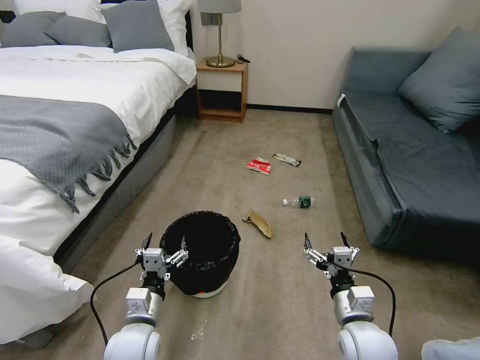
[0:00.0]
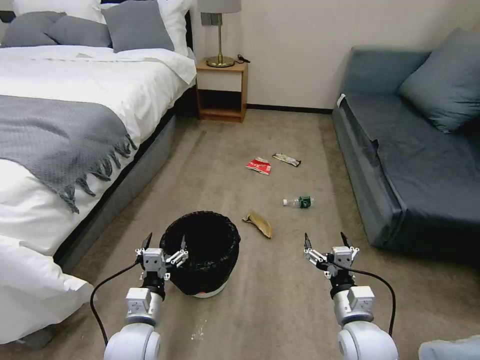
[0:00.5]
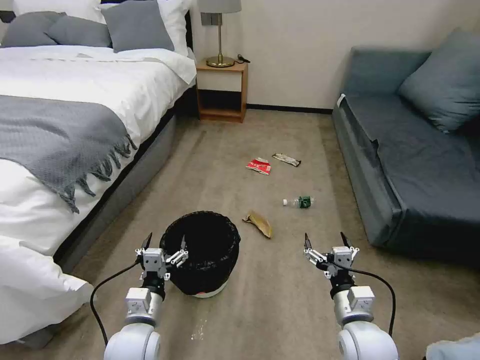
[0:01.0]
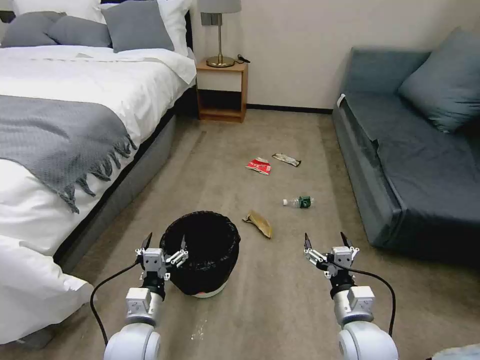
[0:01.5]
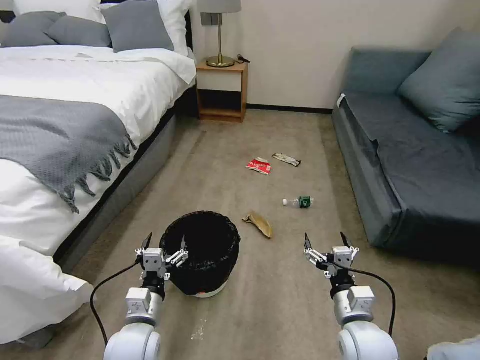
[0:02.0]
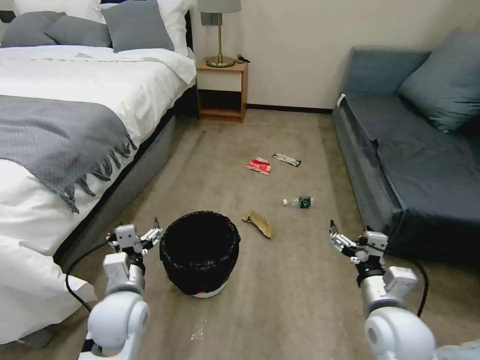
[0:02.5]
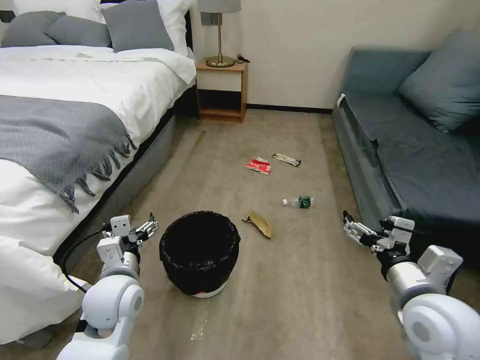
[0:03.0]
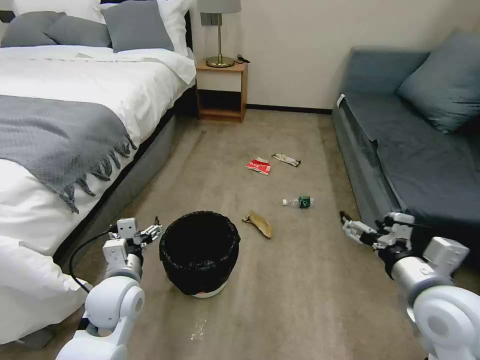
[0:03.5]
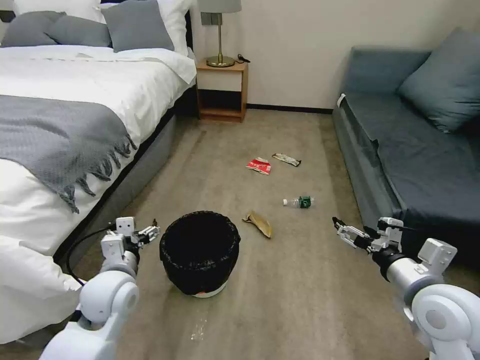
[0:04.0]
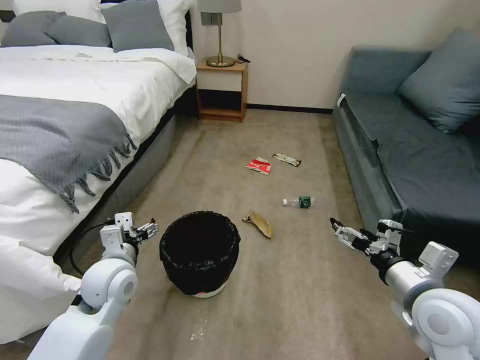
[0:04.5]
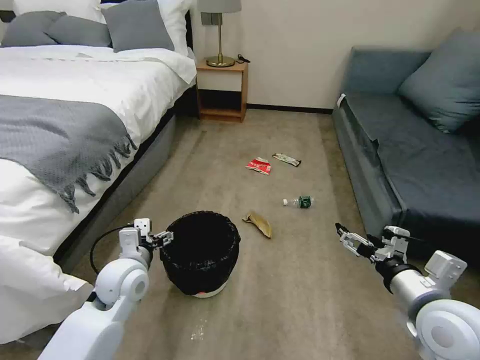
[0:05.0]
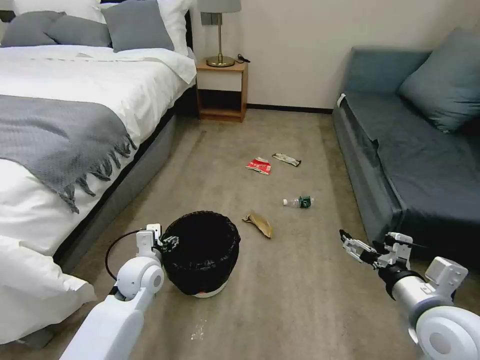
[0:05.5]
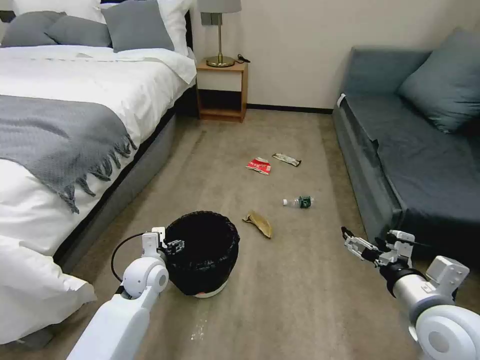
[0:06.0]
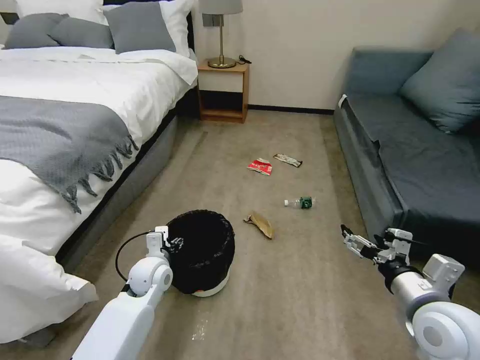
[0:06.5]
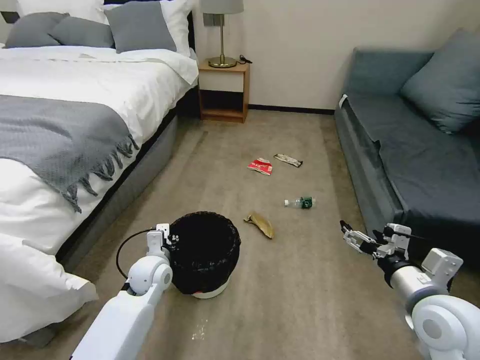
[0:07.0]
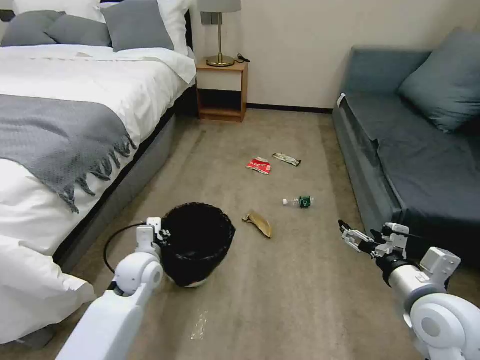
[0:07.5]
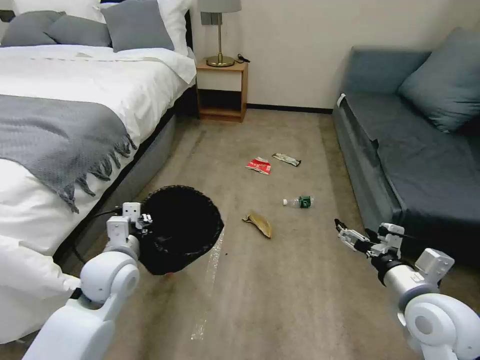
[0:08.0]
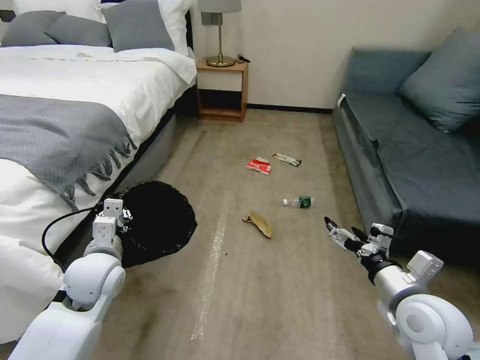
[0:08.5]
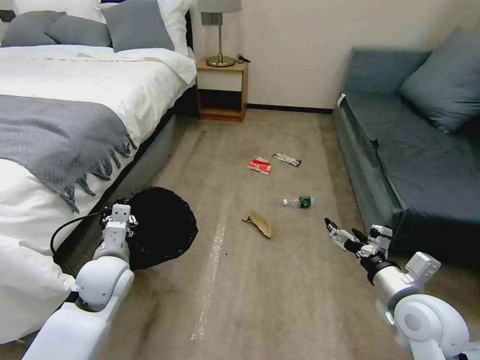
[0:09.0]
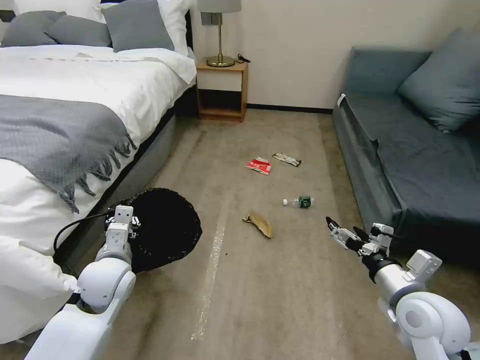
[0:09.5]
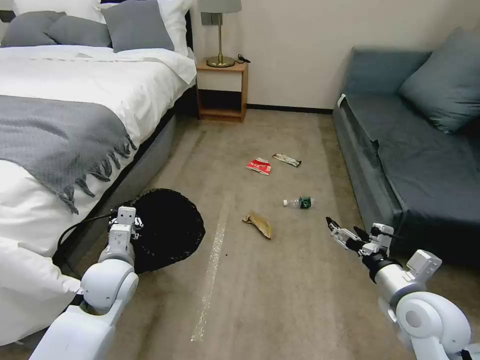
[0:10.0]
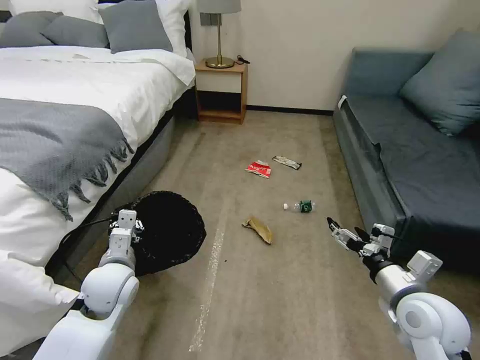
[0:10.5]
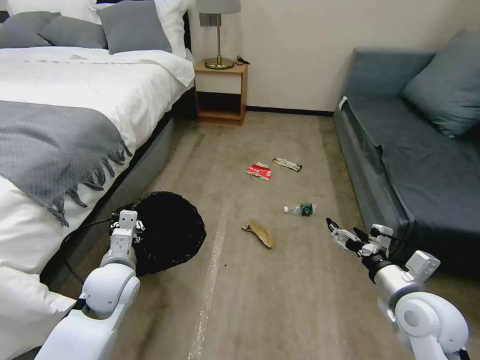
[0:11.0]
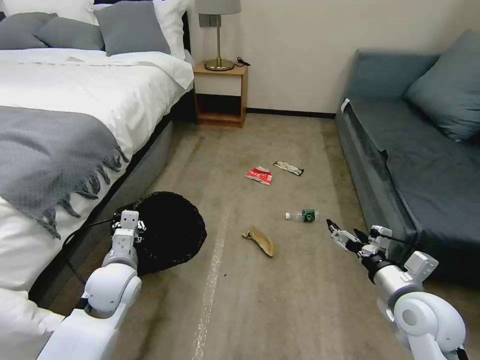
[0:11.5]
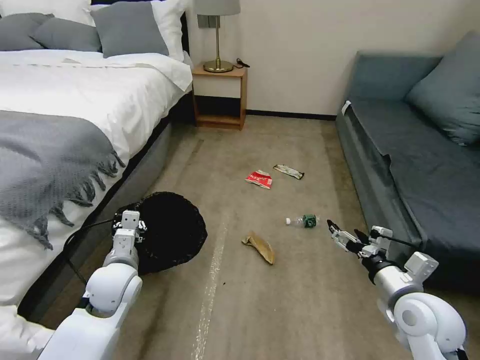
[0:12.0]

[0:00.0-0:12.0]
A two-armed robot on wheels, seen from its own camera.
Task of the whole recording: Pick up the trash bin, then pick up the garbage on the floor and place it into the trash bin.
2.0 to 4.0 s: The right gripper goes about 15 cm upward and to the right. Meanwhile the left gripper shifts approximately 10 cm upward and forward.
4.0 to 6.0 s: The left gripper moves downward and forward, about 10 cm.
6.0 to 8.0 s: The left gripper shifts about 10 cm upward, and closes its fingers.
8.0 to 10.0 s: The grippers make only small movements.

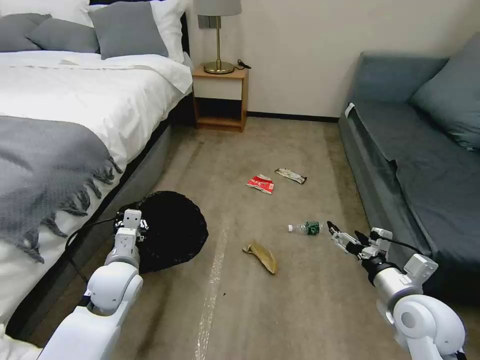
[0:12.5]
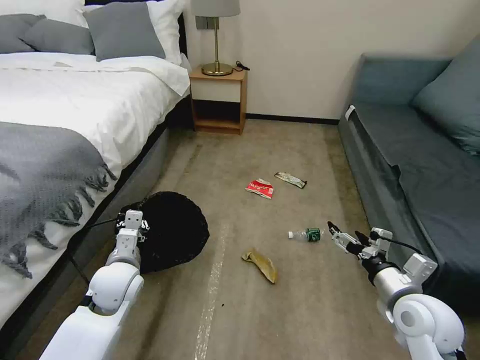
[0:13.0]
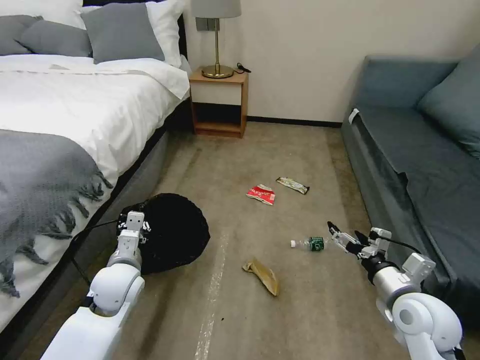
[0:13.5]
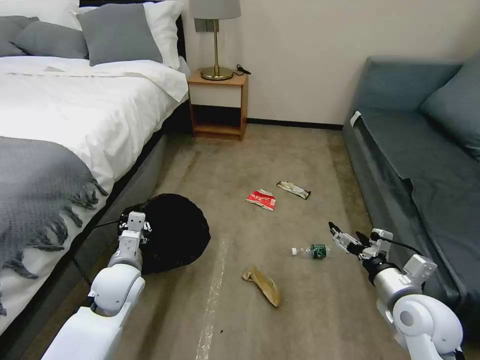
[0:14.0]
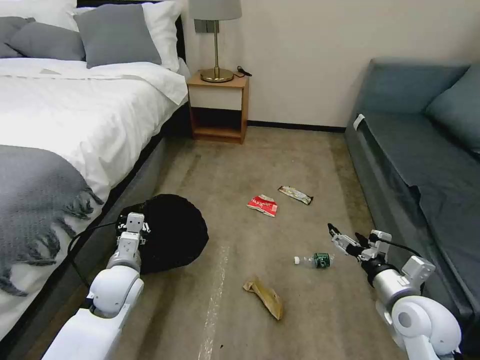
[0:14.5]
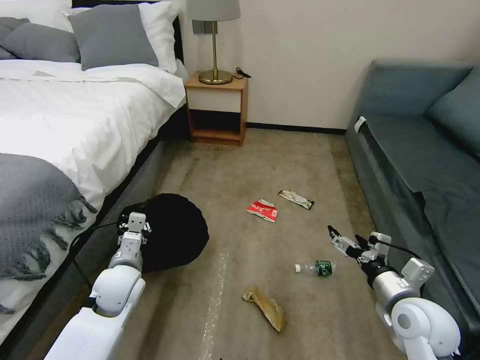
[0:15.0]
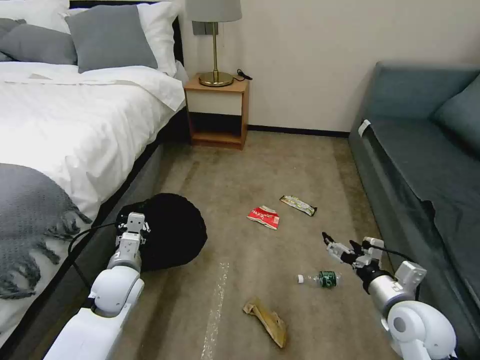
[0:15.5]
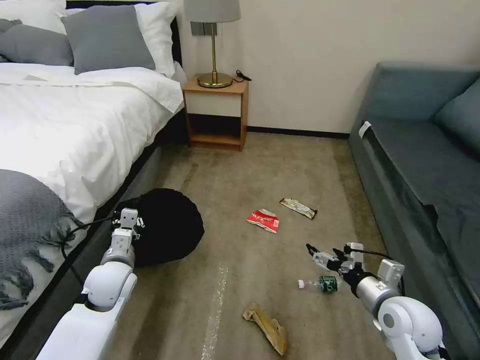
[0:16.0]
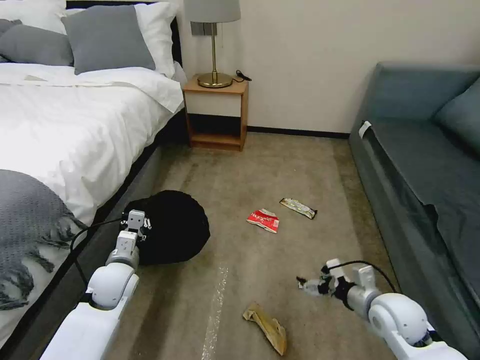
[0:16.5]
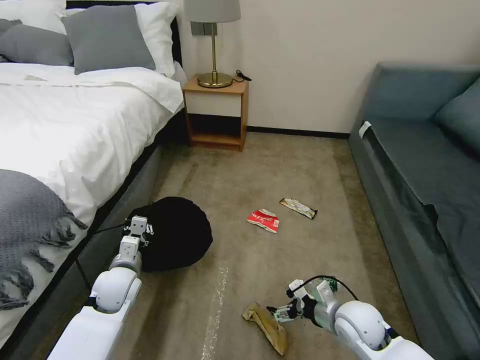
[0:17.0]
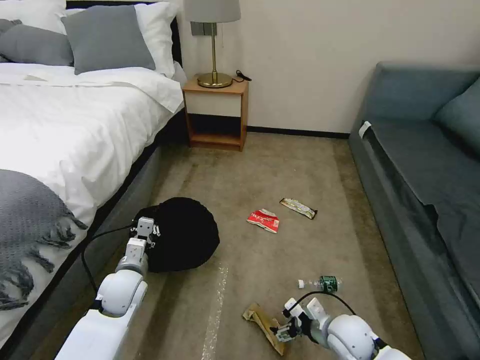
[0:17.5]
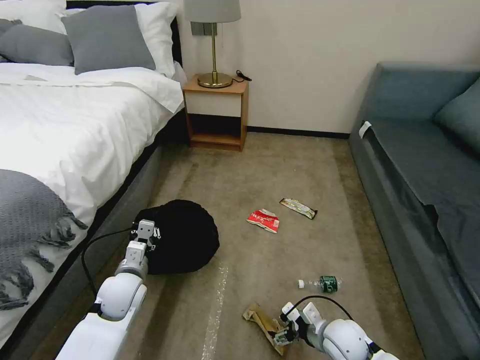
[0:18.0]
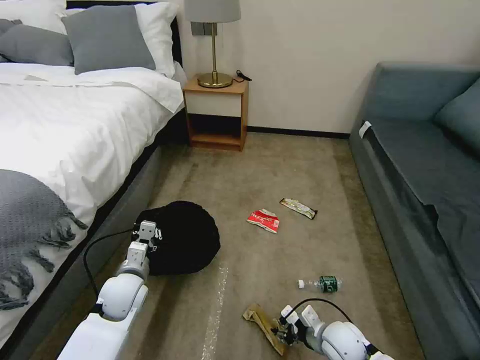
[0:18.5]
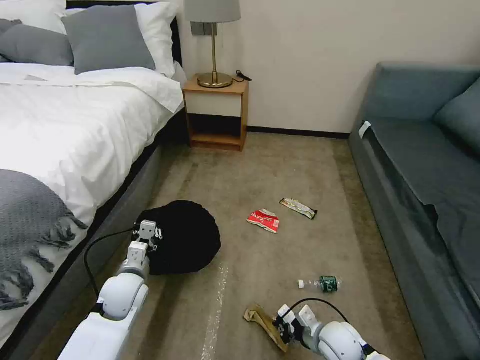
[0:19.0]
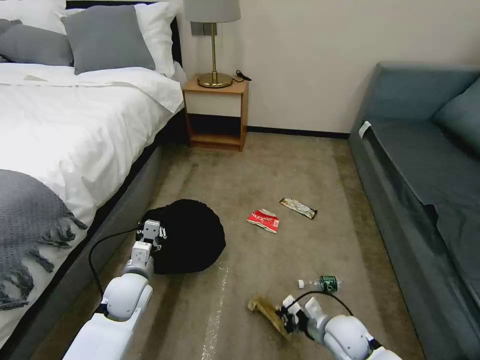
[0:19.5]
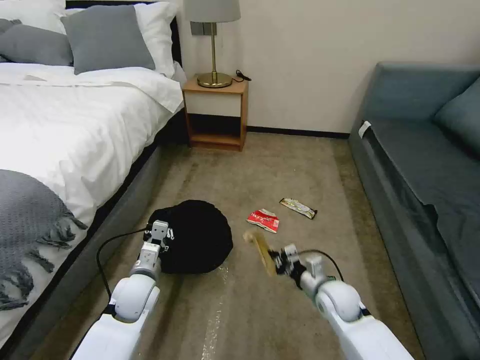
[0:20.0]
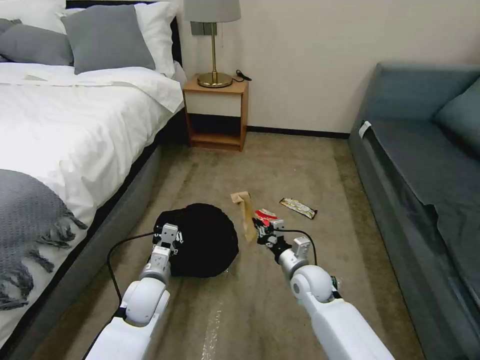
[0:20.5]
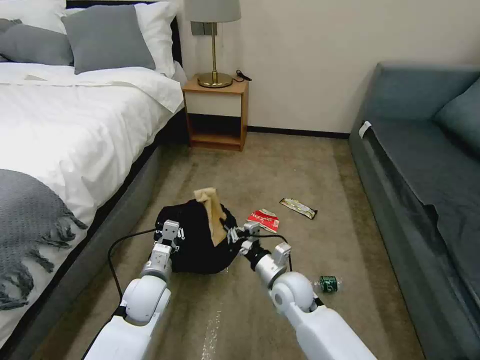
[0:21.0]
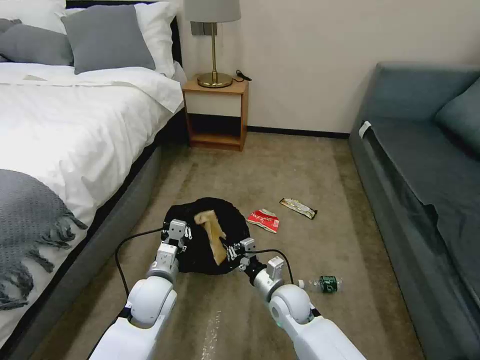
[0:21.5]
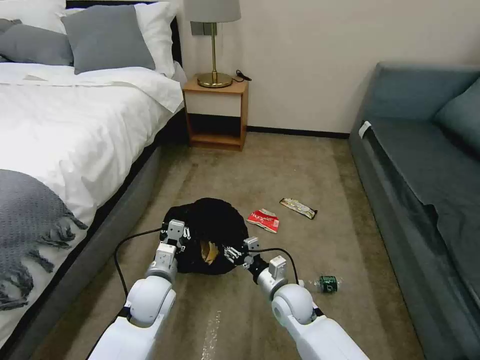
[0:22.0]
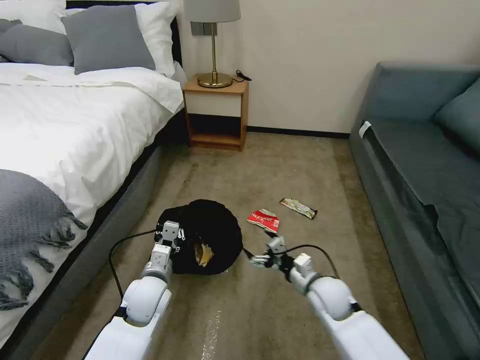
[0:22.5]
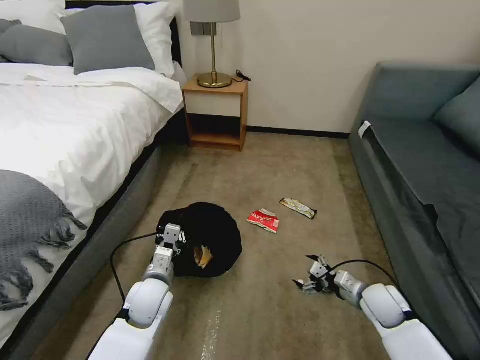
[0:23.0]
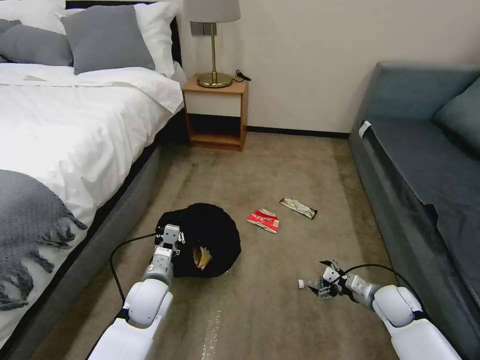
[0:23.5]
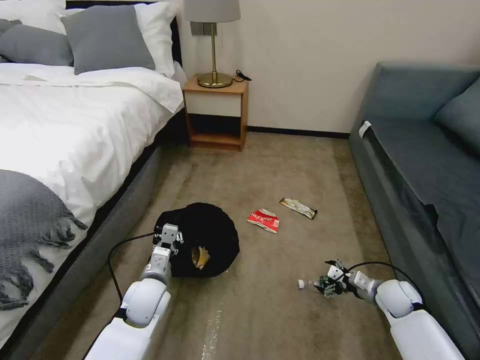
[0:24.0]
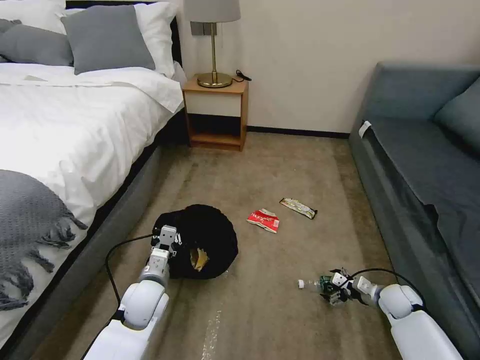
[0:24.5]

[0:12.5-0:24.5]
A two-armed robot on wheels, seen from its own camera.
Task of the whole recording: Pick up the trash bin, then pick up the garbage on the floor and place it into the trash bin.
14.5 to 16.5 s: The right gripper travels downward by roughly 5 cm.
16.5 to 18.5 s: The right gripper shifts approximately 15 cm downward and to the left, and closes.
18.5 to 20.5 s: The left gripper travels to the right by roughly 5 cm, while the right gripper is displaced forward, to the left and upward by roughly 15 cm, and closes.
20.5 to 22.5 s: The right gripper shifts by approximately 5 cm, and opens up.
22.5 to 24.5 s: The right gripper goes roughly 25 cm to the right.

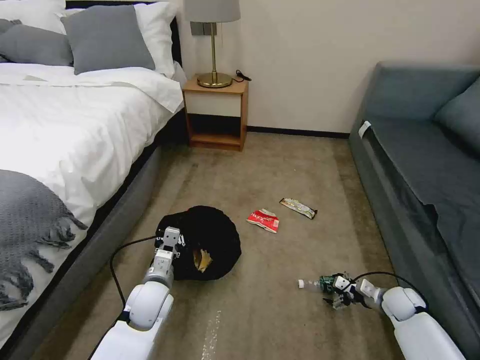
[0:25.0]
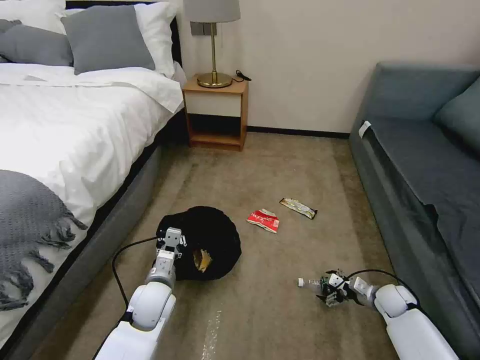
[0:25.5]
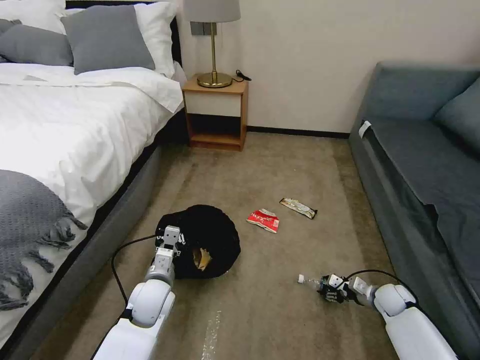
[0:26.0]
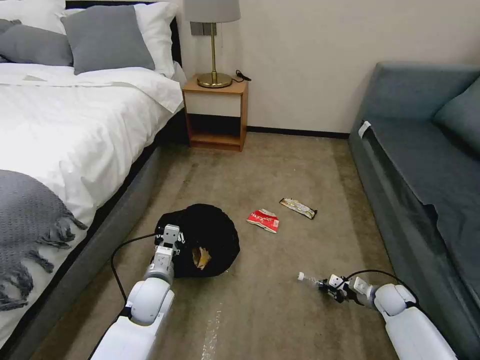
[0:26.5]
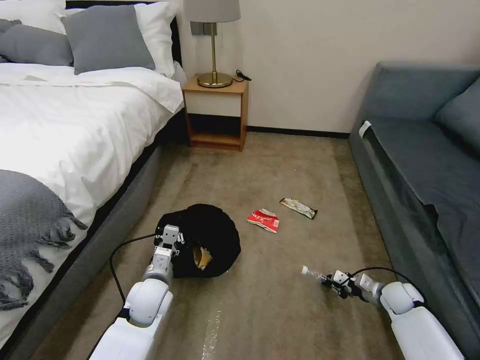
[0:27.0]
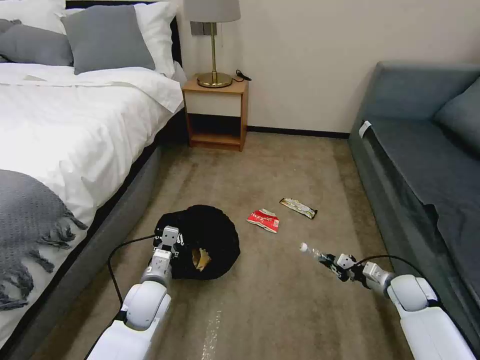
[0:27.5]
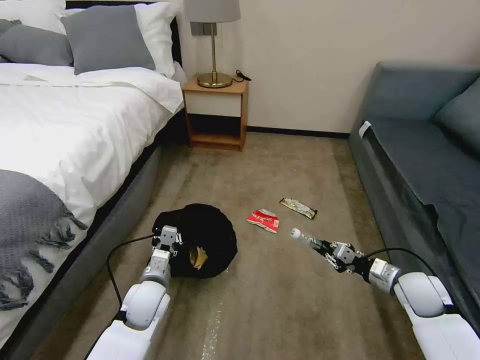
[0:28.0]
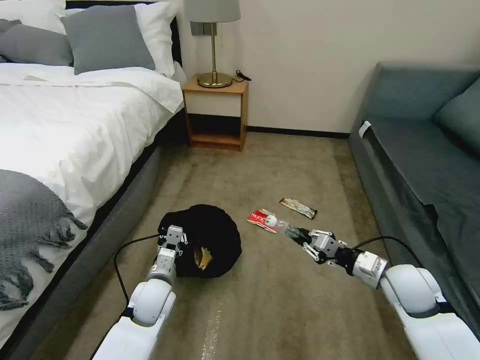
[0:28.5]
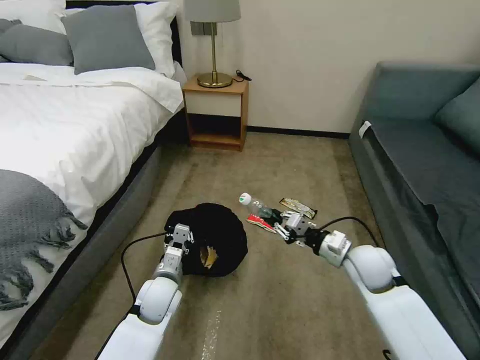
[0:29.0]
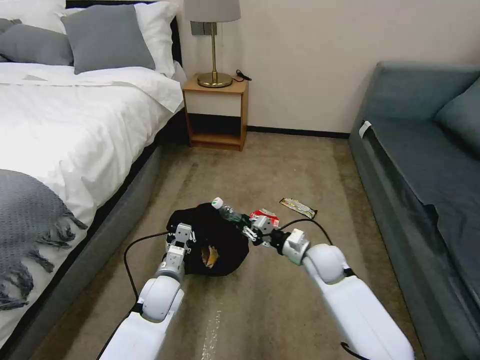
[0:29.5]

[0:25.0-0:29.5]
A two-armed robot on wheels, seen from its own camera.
Task of the whole recording: Pick up the trash bin, then pick up the garbage on the floor and place it into the trash bin.
25.0 to 27.0 s: The right gripper closes its fingers.
27.0 to 29.5 s: The right gripper heads to the left and upward, covering about 30 cm.
